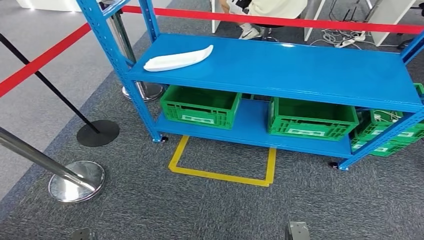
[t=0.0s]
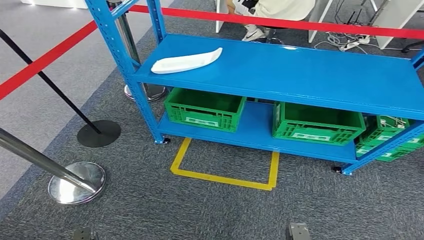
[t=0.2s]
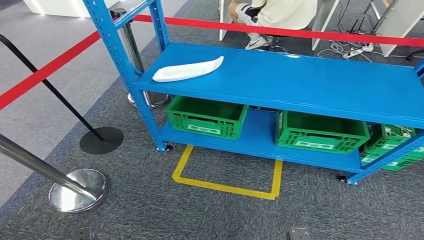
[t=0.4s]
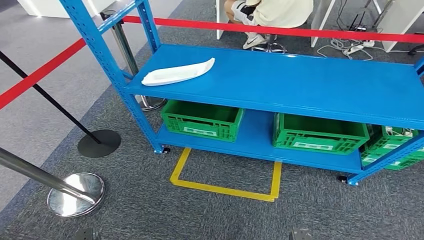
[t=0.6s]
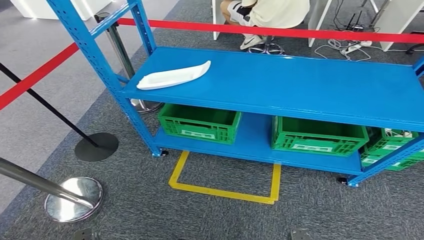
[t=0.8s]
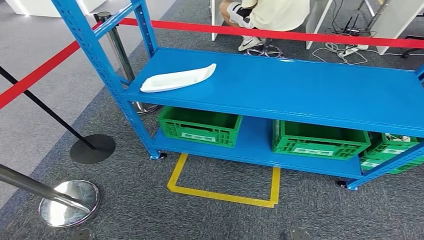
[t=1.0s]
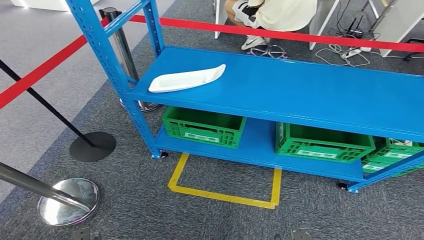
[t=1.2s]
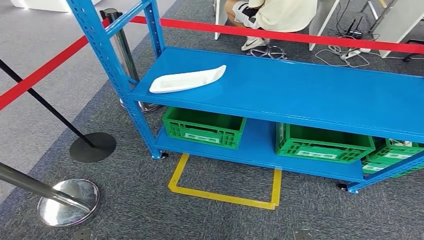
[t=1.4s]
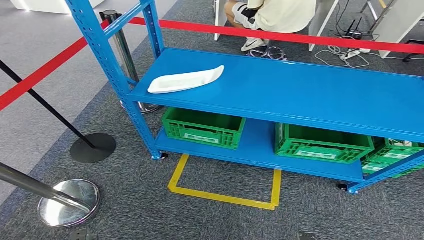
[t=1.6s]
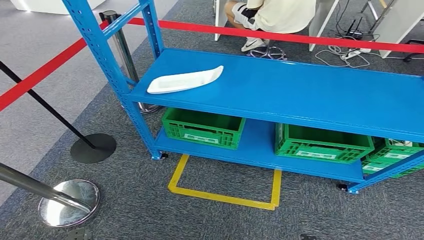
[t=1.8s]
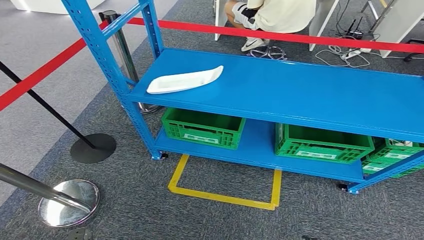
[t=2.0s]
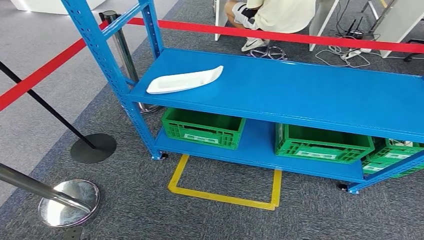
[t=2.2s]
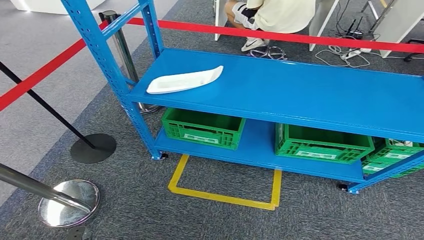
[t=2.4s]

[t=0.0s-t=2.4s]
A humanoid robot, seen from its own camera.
Step, t=0.0s to t=2.4s: Return to the initial position at the workbench.
t=1.2s to t=2.4s: The left hand travels to the left by some 5 cm, while the right hand ends up about 5 cm from where it was.
